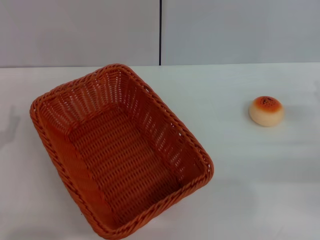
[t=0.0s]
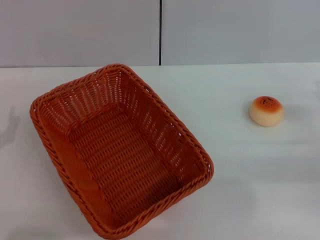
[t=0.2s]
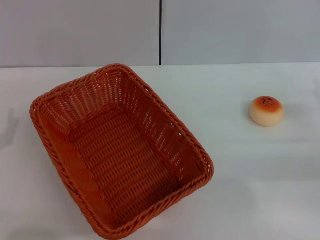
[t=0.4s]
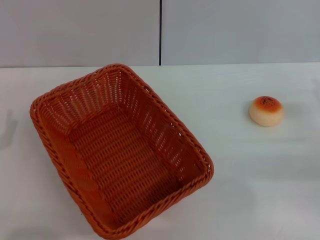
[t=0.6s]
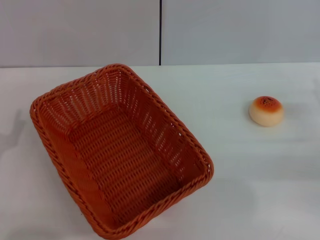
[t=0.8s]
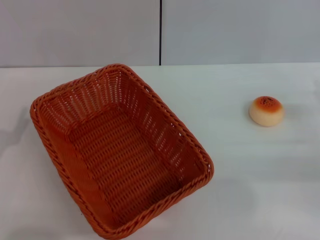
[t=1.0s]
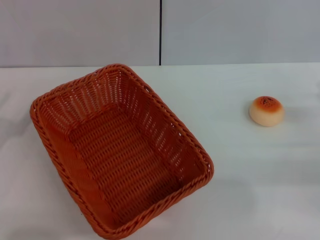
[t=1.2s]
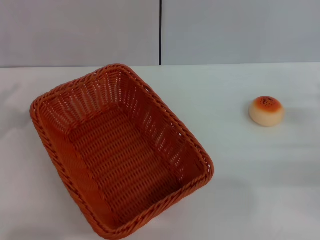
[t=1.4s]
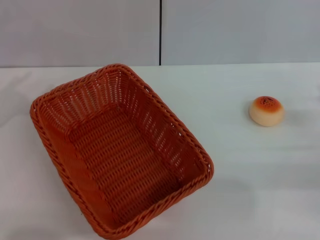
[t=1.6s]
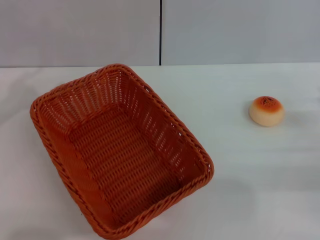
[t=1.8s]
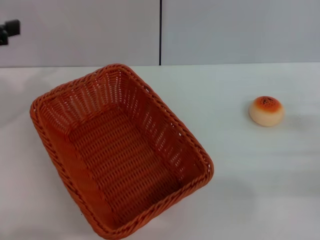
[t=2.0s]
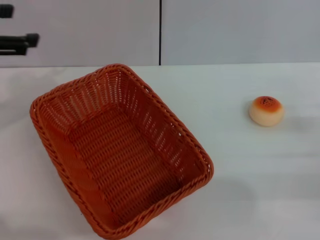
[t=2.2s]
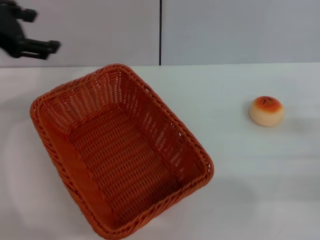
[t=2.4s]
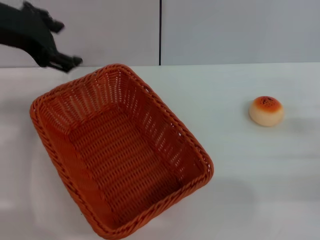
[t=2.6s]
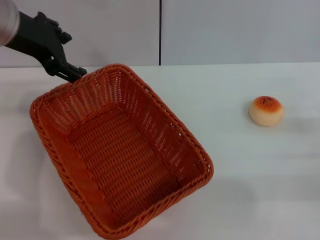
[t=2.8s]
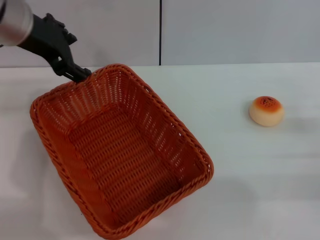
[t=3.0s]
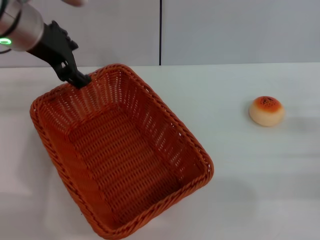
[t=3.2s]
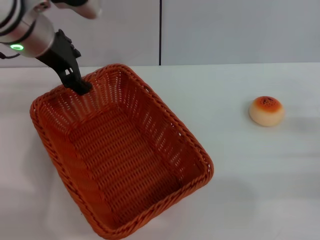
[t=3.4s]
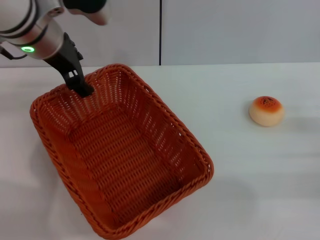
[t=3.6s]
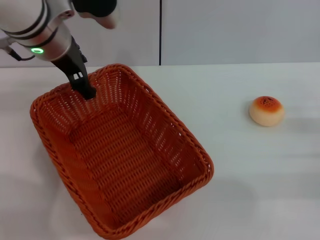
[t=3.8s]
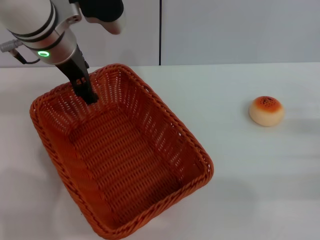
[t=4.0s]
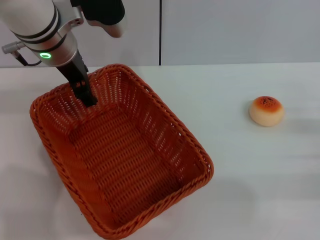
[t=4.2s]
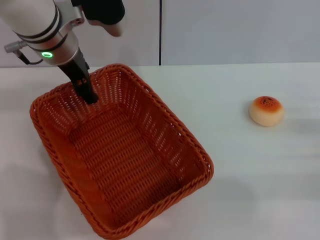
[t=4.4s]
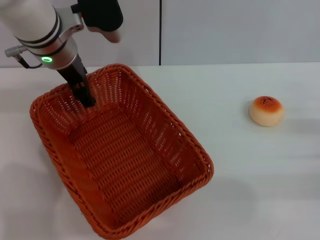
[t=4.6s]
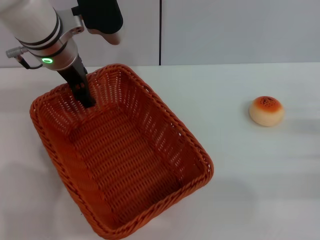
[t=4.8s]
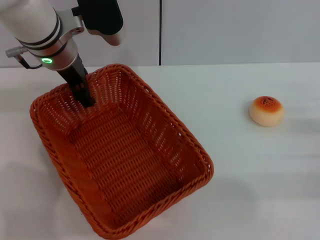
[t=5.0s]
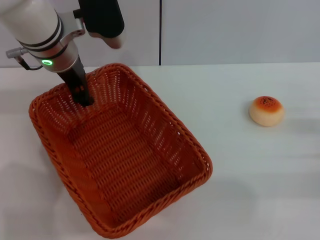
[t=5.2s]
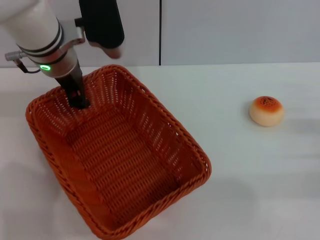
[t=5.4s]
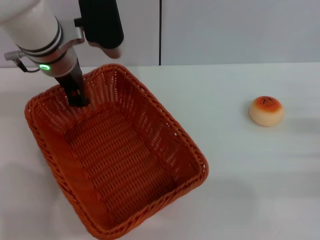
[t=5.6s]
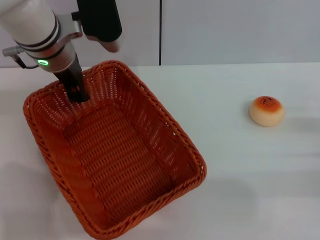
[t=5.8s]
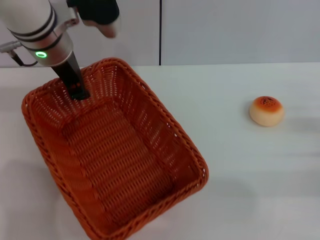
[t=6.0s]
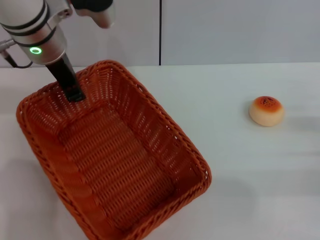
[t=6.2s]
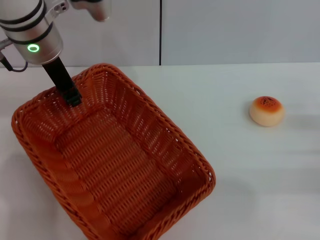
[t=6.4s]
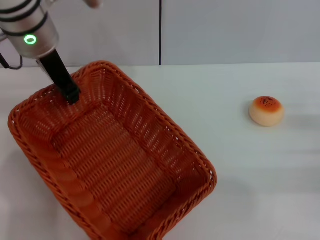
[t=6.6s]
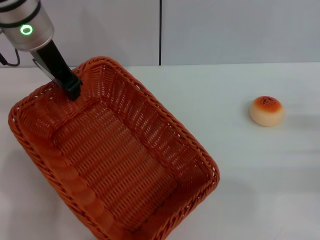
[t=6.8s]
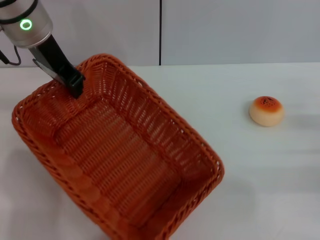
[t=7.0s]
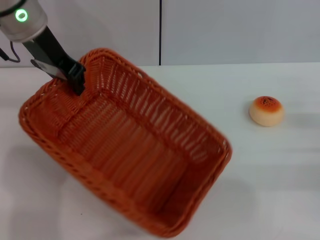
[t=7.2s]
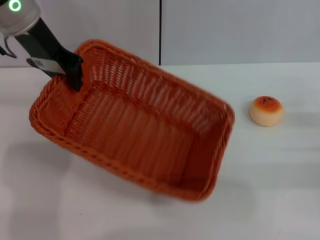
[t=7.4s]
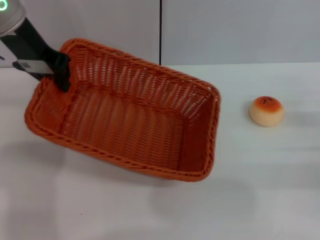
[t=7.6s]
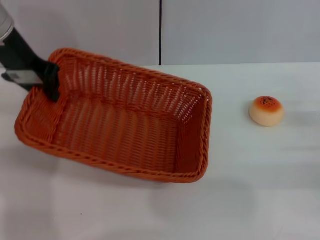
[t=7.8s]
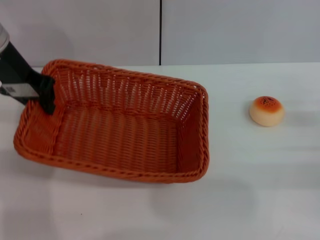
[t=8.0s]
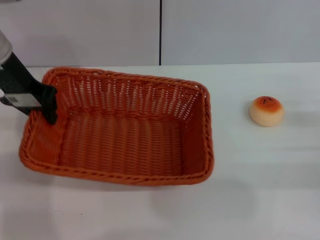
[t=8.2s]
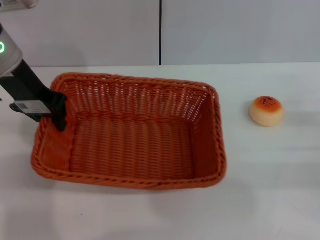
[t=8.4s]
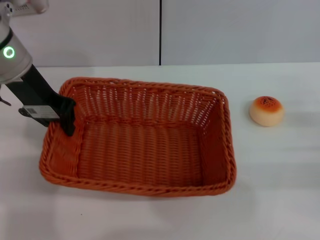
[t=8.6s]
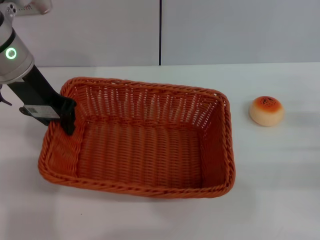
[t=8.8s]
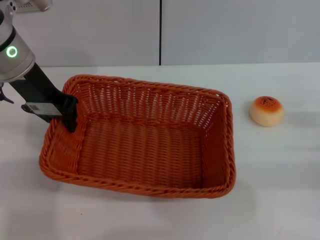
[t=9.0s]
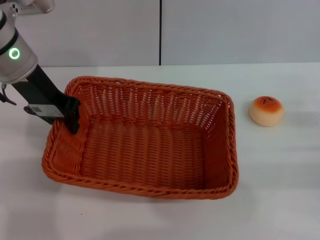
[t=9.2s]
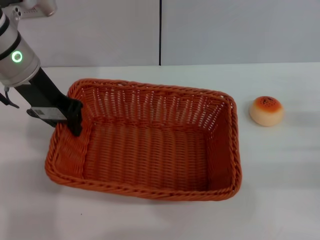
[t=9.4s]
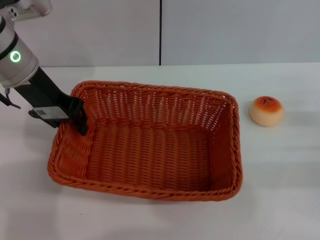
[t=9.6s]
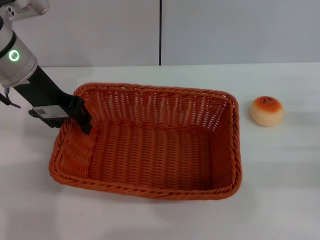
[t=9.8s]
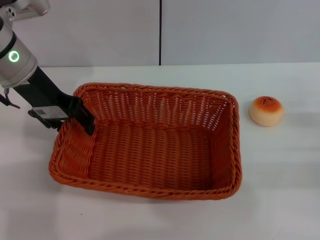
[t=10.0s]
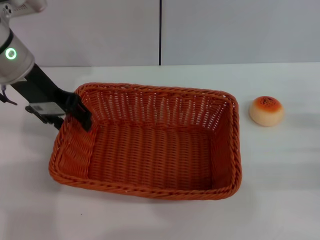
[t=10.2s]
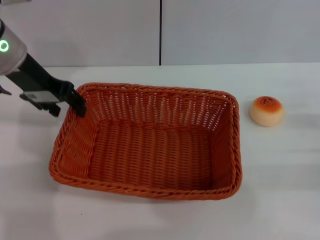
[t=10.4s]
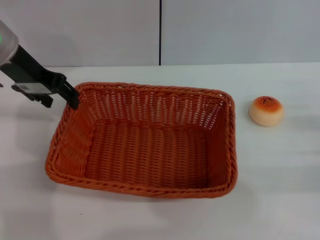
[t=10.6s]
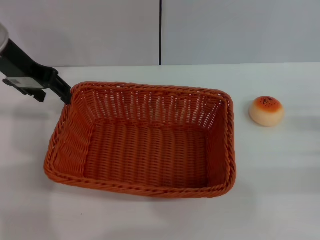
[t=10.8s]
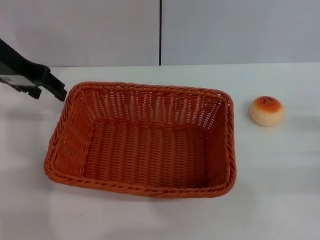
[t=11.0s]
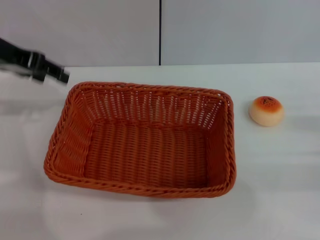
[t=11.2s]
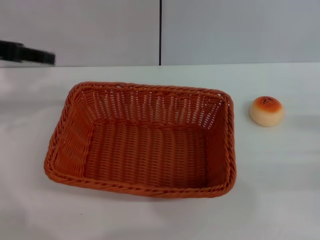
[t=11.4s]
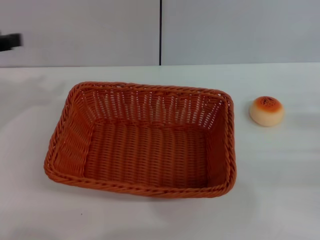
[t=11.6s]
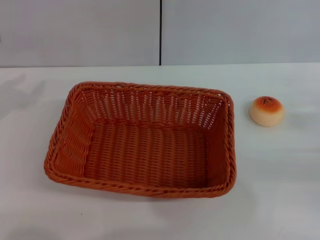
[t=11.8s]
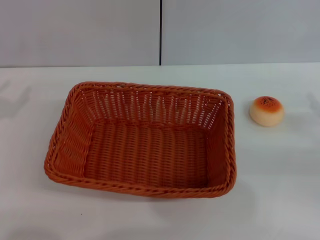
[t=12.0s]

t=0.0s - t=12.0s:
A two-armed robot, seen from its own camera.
Step, t=0.0s - t=11.0s: Move the basket to the center of view with the left gripper.
t=1.6s - t=3.0s: The left gripper shifts some 25 cm to the right, forward and upward.
t=3.0s - t=4.4s: The left gripper shifts roughly 5 cm downward.
t=4.4s - t=6.0s: The left gripper closes its fingers.
t=6.0s - t=7.6s: The left gripper travels to the left and upward by about 10 cm.
t=7.6s - t=9.0s: The left gripper shifts by approximately 5 cm.
t=9.0s - t=10.4s: The left gripper opens up.
t=10.4s - t=12.0s: The left gripper shifts approximately 20 cm to the left and backward.

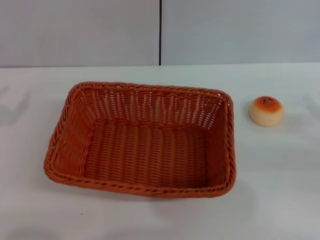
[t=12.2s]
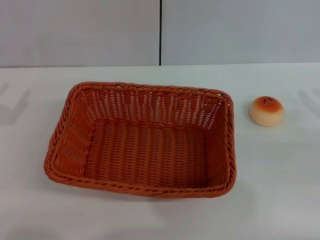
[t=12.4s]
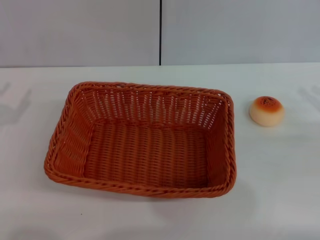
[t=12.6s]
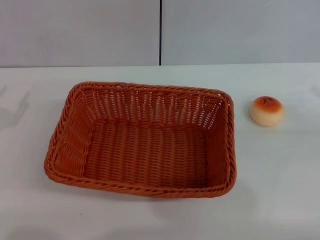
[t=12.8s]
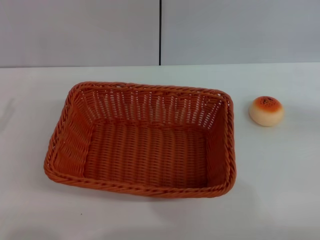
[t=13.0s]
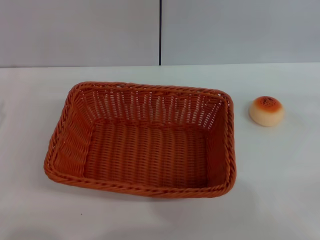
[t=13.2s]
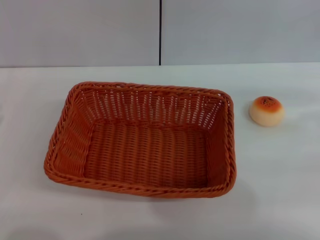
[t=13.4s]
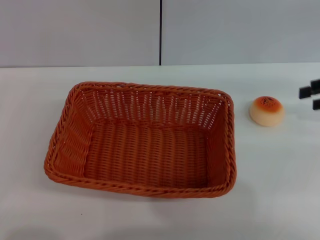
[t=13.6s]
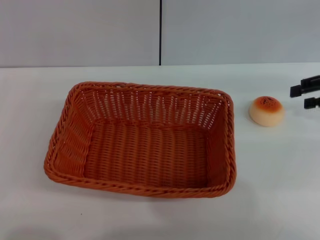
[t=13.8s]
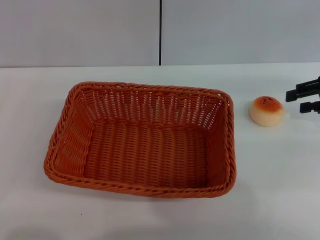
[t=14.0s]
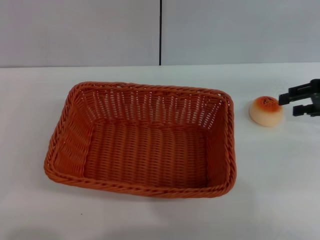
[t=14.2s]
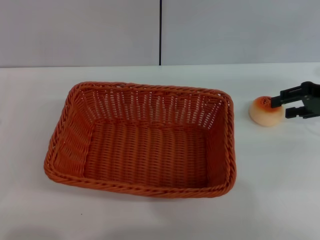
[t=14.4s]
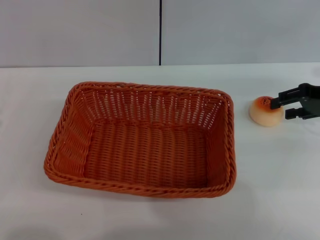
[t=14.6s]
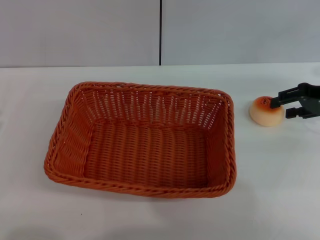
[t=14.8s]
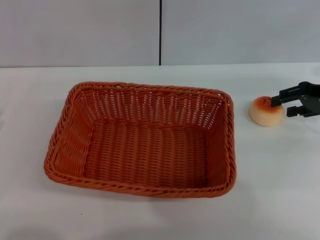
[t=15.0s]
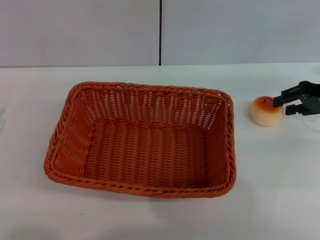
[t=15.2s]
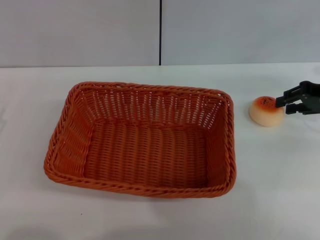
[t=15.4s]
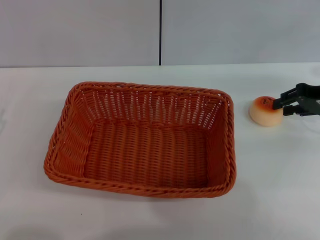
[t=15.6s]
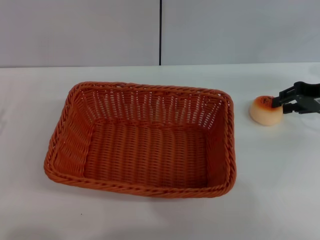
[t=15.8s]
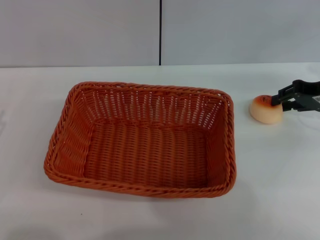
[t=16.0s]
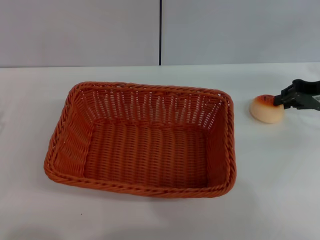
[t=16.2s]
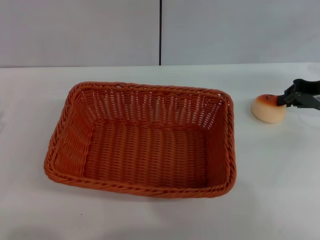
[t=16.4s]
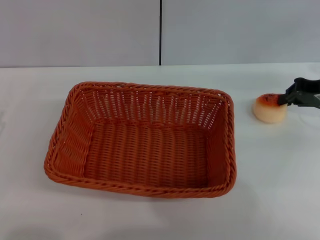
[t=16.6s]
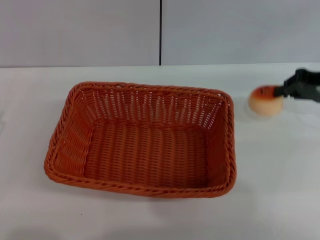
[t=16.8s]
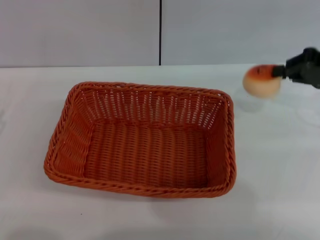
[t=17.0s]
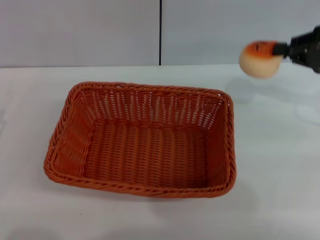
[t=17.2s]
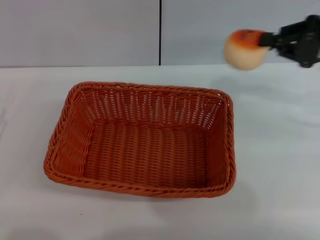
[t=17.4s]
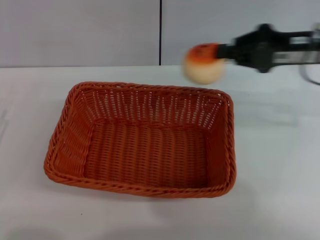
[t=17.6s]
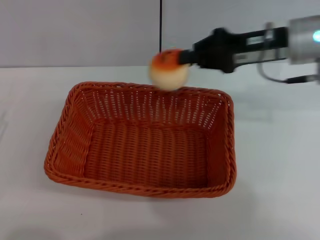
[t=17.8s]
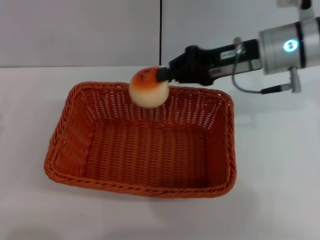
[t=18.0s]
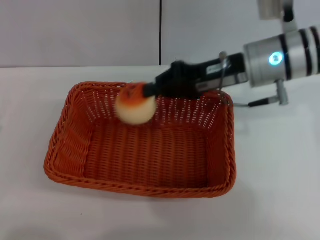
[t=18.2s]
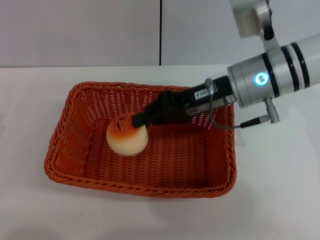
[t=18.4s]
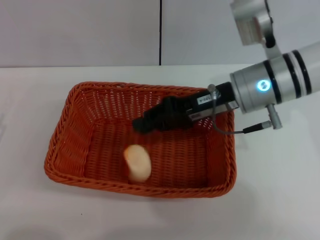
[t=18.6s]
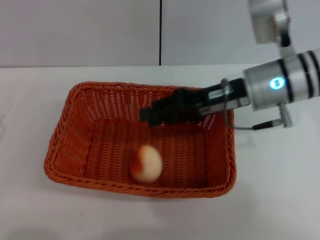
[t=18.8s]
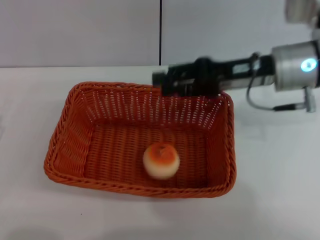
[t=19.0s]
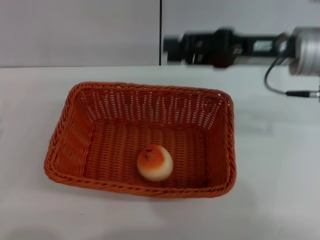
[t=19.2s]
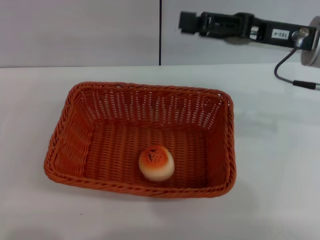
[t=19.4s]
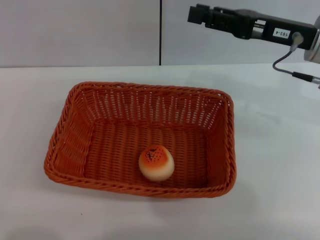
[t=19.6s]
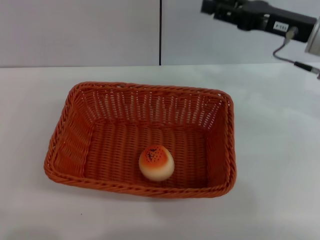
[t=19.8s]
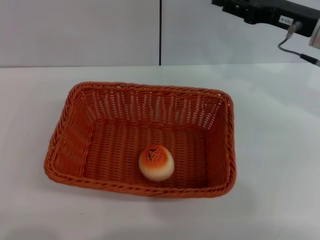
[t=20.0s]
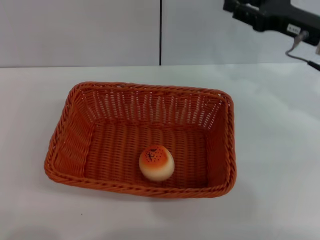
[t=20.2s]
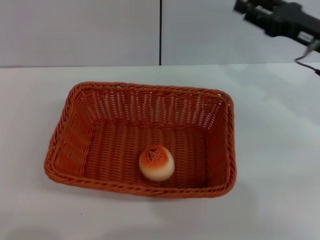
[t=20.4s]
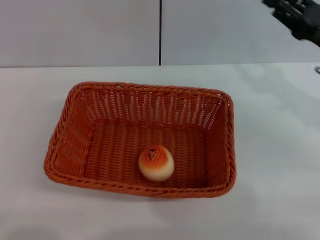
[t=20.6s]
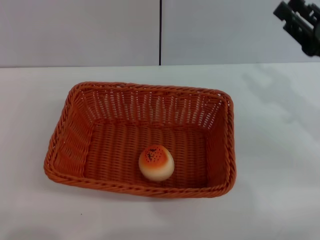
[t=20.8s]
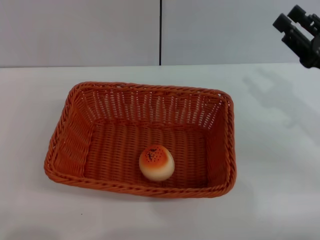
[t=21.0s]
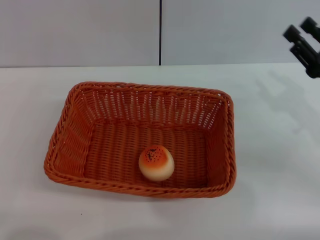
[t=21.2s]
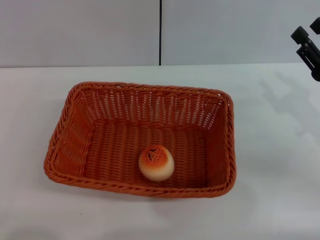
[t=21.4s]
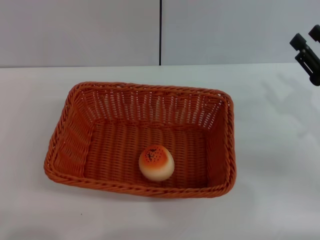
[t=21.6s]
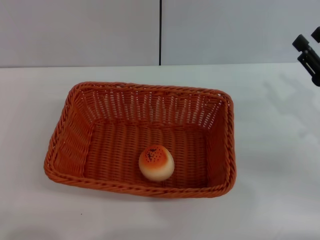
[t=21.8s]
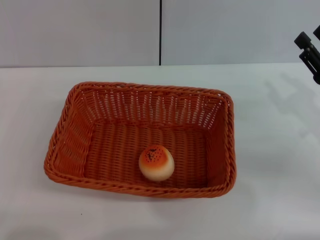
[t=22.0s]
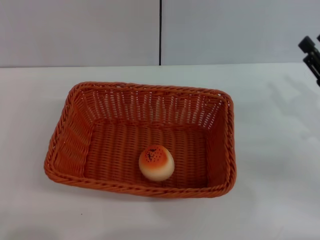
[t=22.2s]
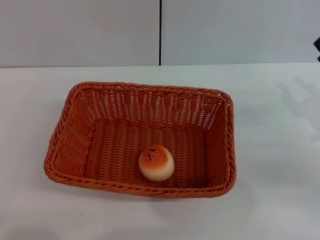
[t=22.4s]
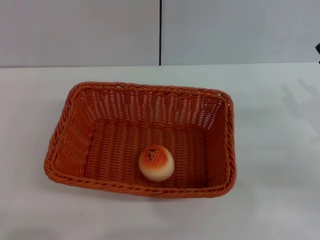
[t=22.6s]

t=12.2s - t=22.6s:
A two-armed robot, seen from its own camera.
Step, t=12.2s - t=17.0s: Pick up the egg yolk pastry with the right gripper.
Step, t=17.2s - t=19.0s: Place the egg yolk pastry into the basket with the right gripper.
t=12.2s - t=13.6s: The right gripper travels upward and forward by about 15 cm.
t=13.6s - t=15.2s: The right gripper moves some 5 cm.
t=15.2s - t=16.6s: The right gripper closes up.
t=16.6s - t=18.2s: The right gripper goes roughly 15 cm to the left.
t=18.2s - t=19.6s: The right gripper heads to the right, covering roughly 5 cm, and opens up.
t=19.6s - t=21.2s: The right gripper shifts roughly 15 cm downward, to the right and backward.
t=21.2s - t=22.6s: The grippers stay close to where they were, moving slightly.
